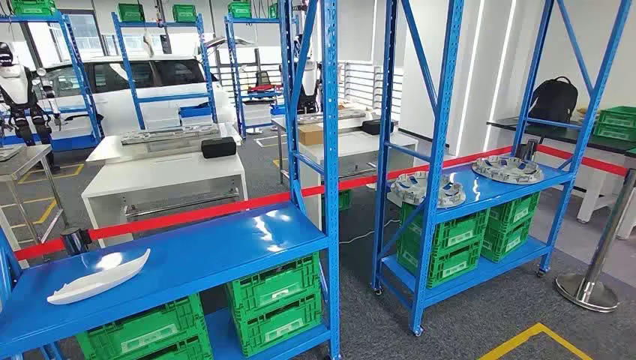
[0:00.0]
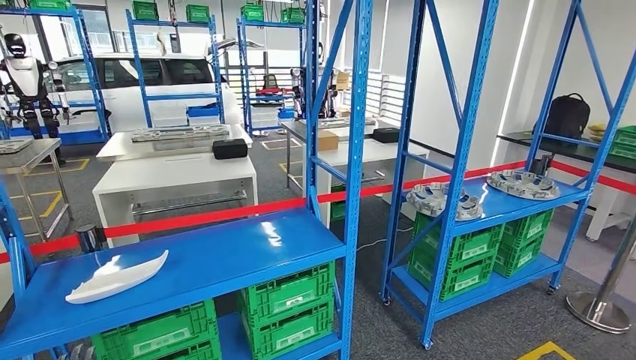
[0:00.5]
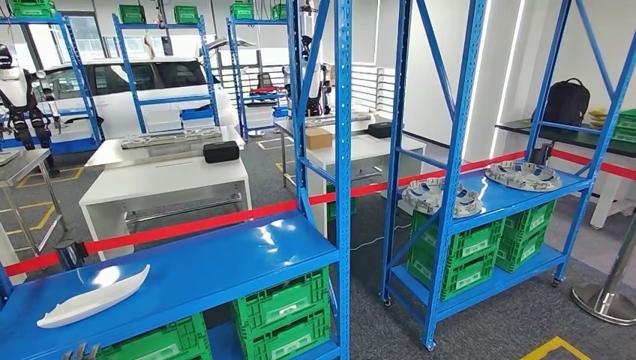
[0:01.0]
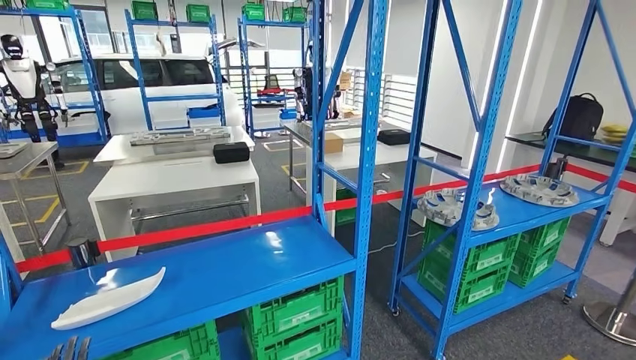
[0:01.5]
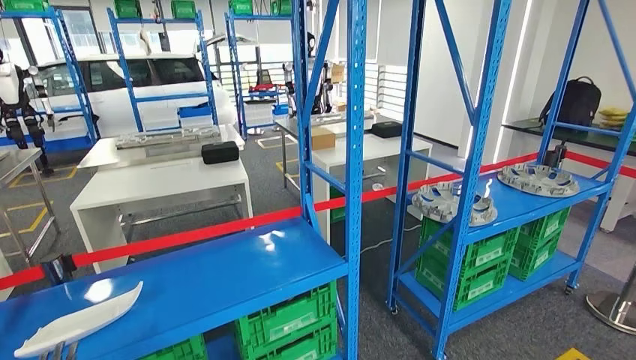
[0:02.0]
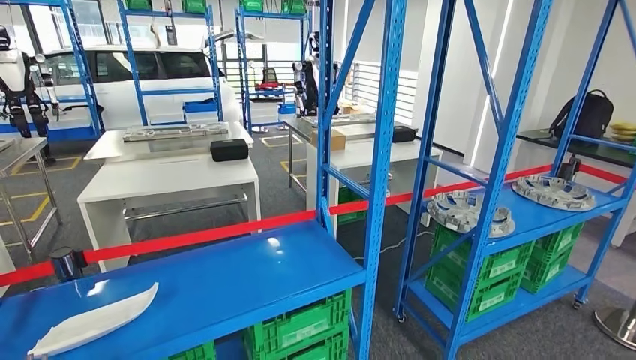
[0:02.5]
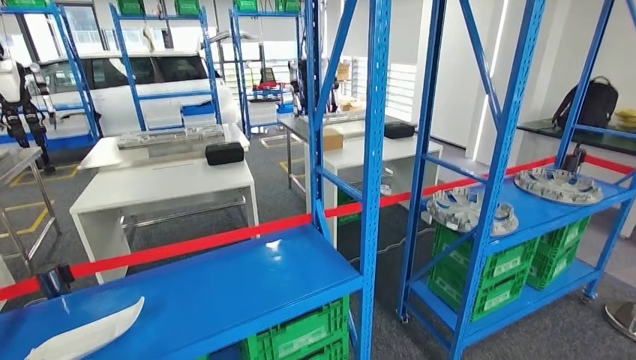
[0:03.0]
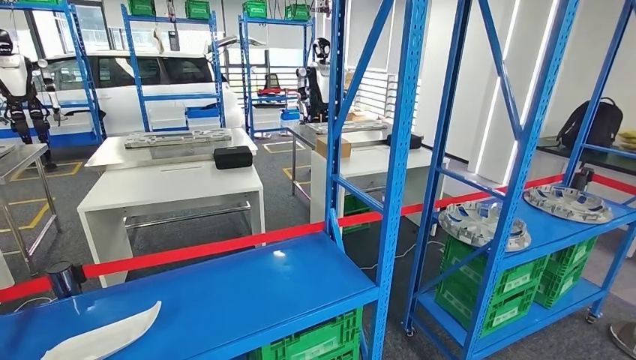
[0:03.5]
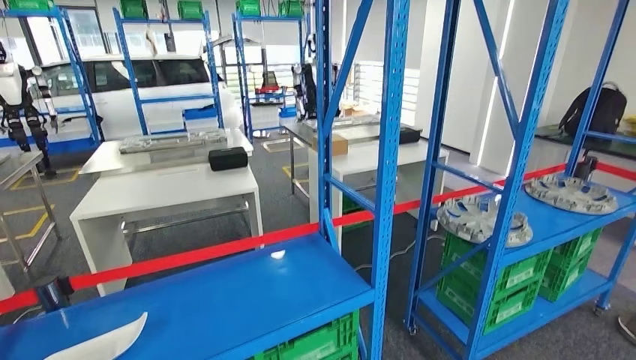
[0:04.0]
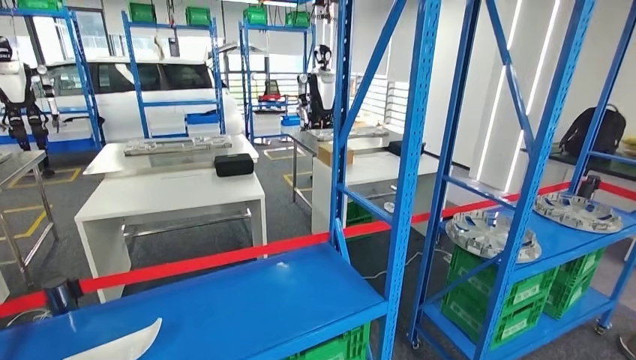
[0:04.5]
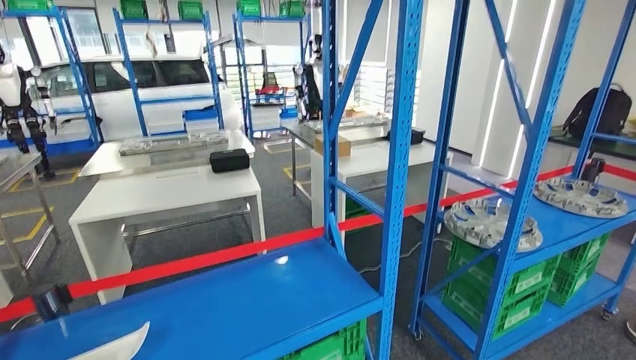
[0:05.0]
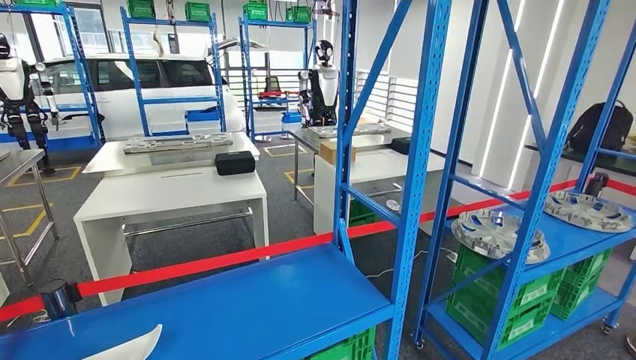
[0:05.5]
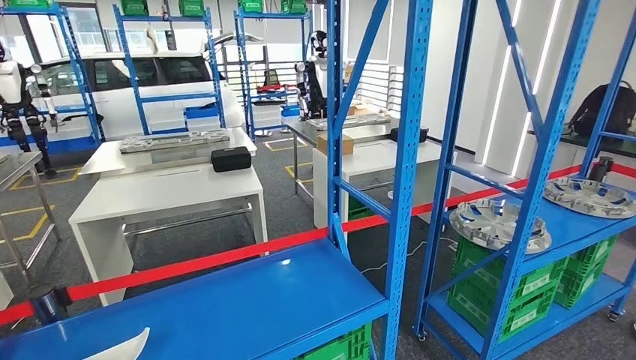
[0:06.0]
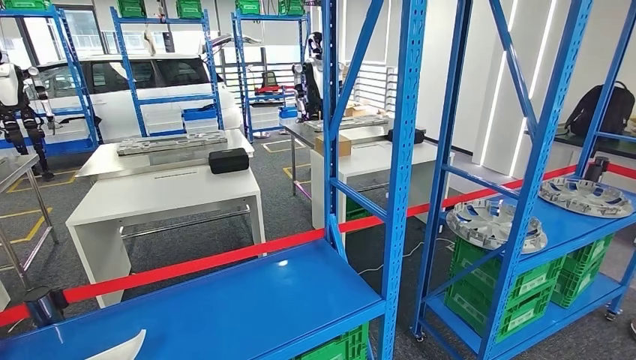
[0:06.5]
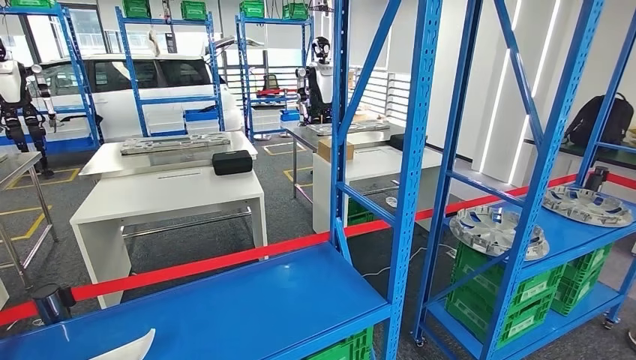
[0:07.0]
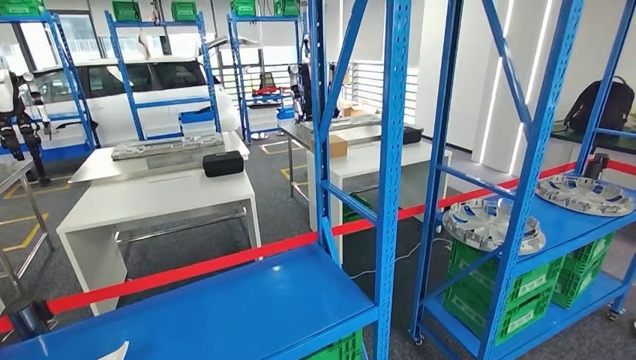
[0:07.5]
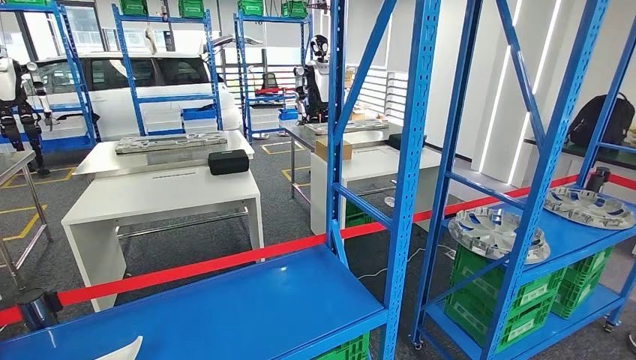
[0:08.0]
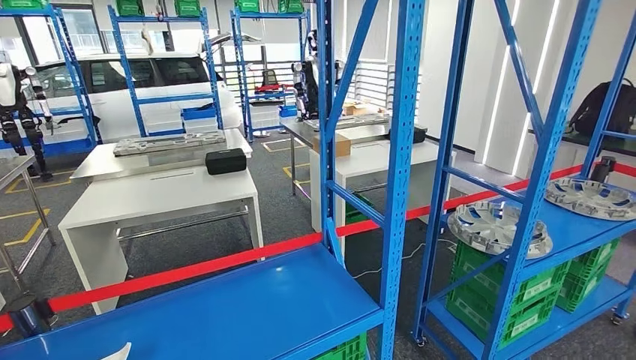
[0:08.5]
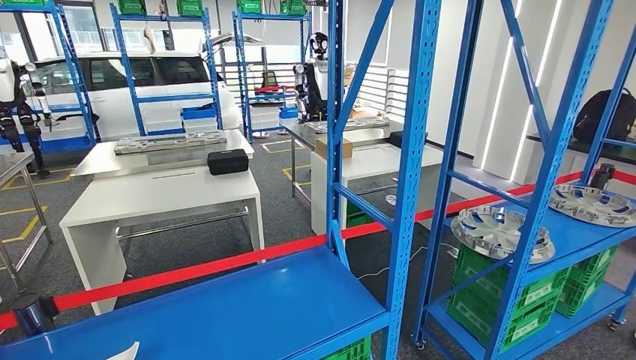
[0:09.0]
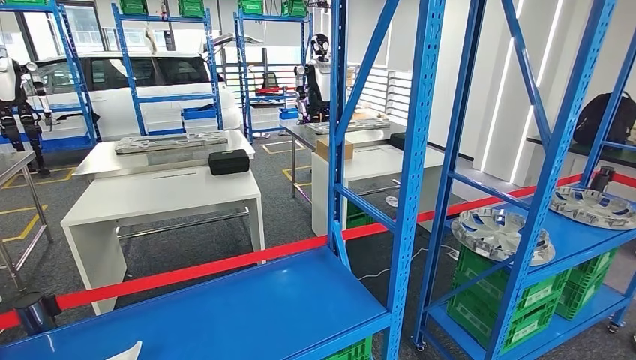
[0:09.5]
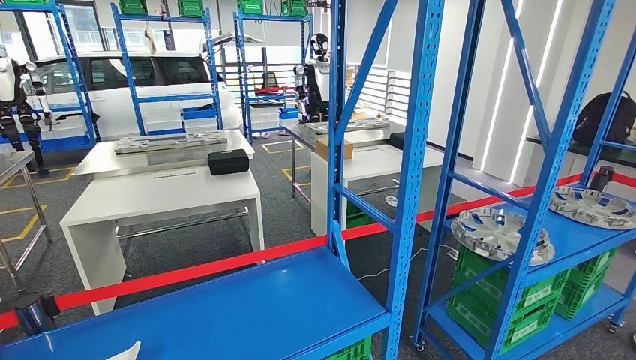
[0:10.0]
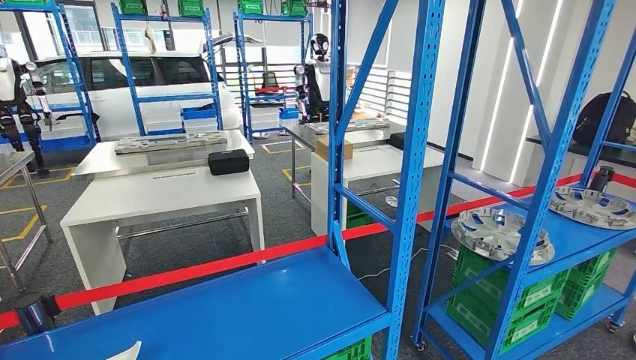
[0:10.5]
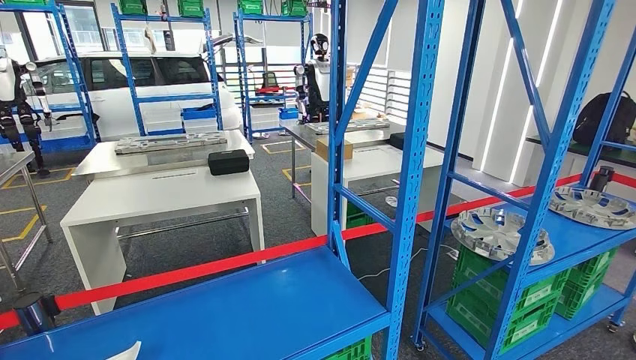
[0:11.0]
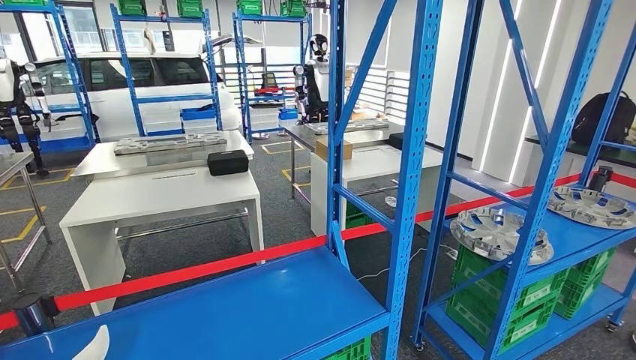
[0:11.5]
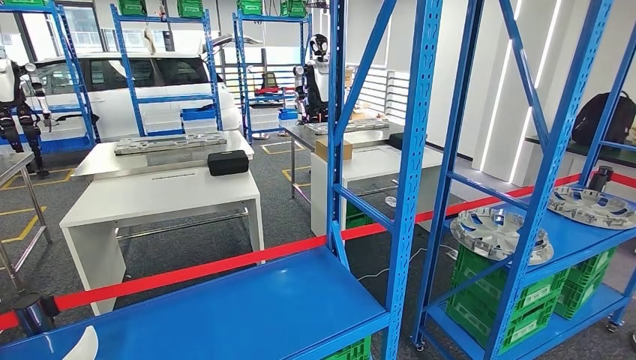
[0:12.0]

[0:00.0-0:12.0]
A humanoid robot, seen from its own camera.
0:08.0 to 0:12.0: The hands stay close to where they were, moving slightly.

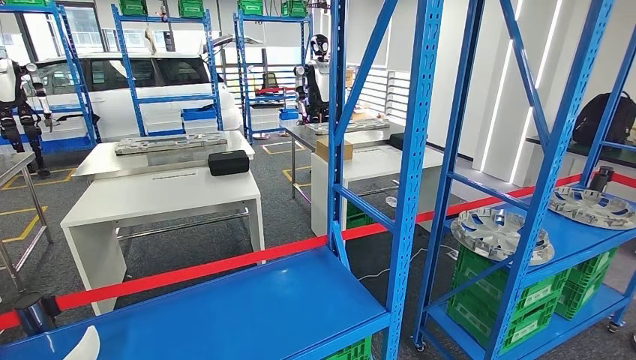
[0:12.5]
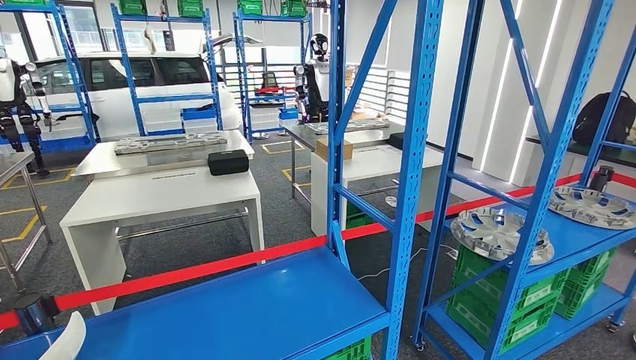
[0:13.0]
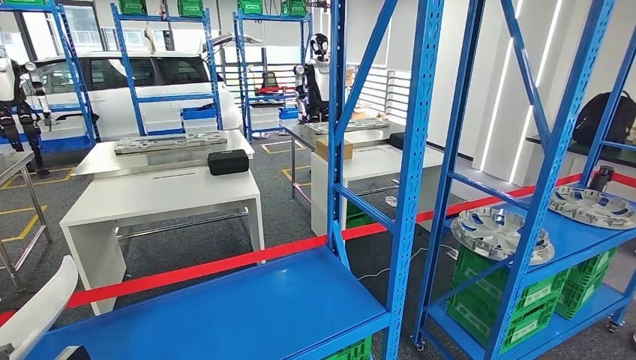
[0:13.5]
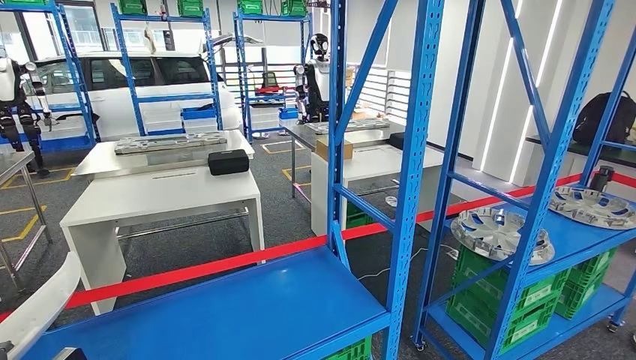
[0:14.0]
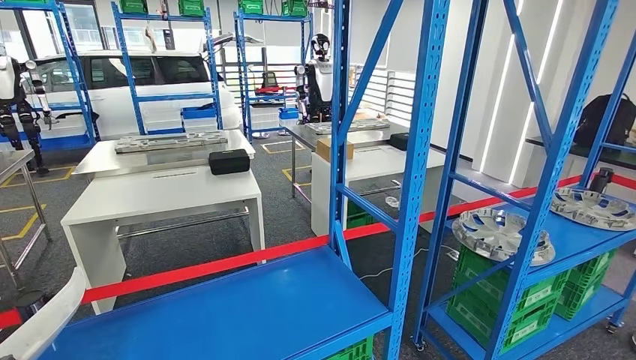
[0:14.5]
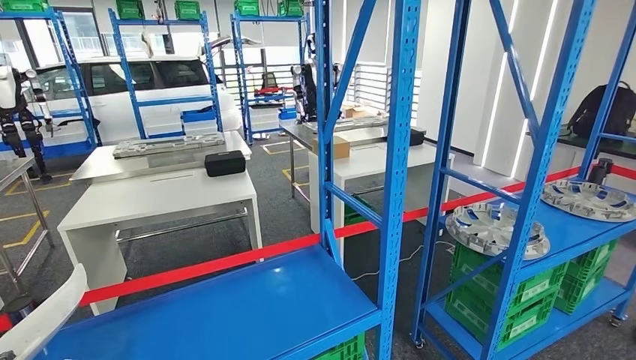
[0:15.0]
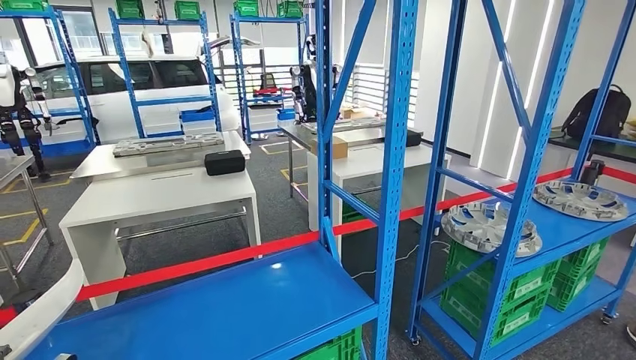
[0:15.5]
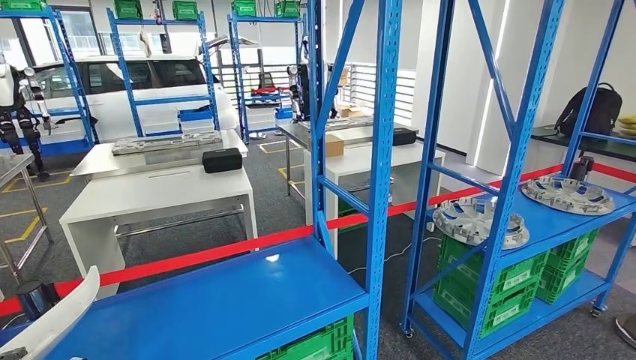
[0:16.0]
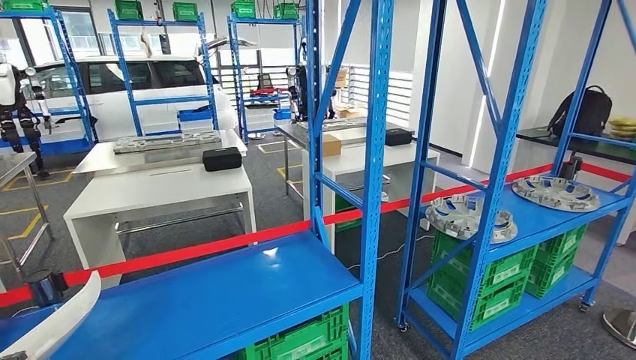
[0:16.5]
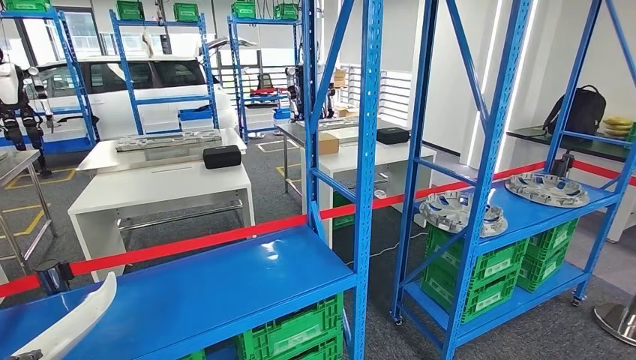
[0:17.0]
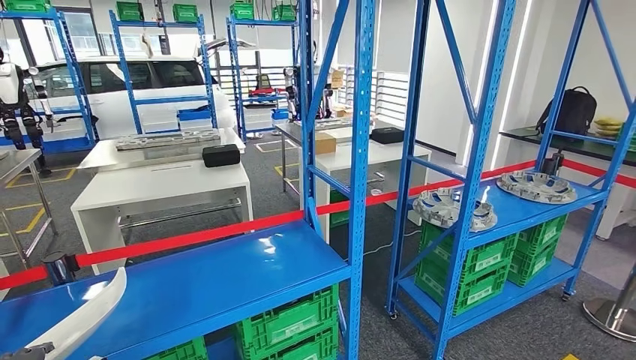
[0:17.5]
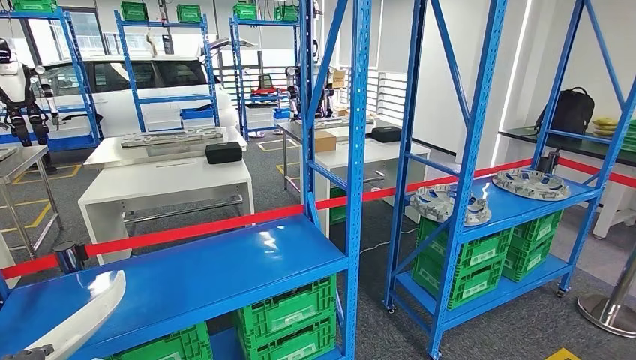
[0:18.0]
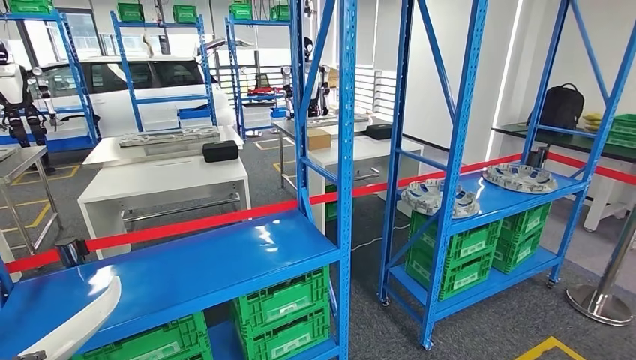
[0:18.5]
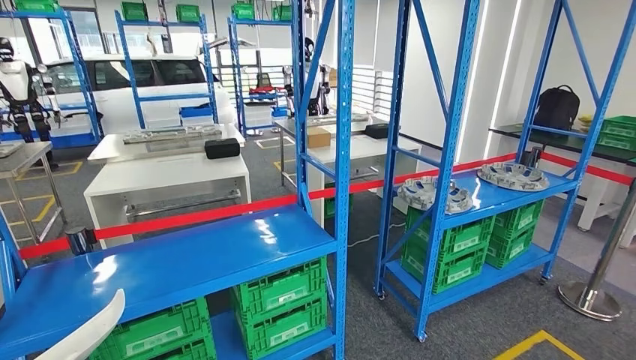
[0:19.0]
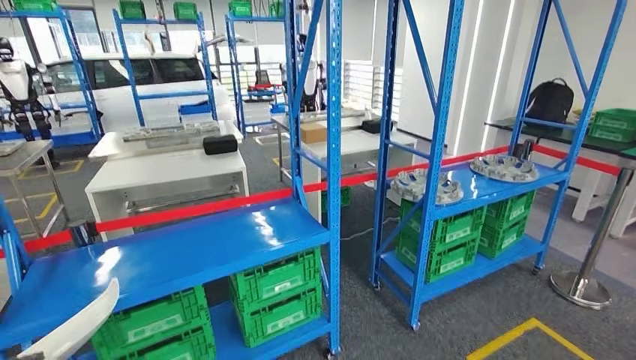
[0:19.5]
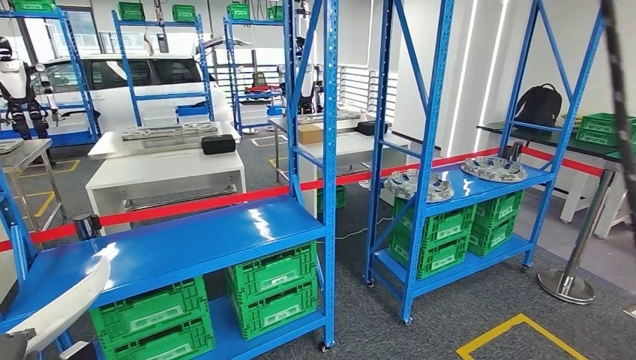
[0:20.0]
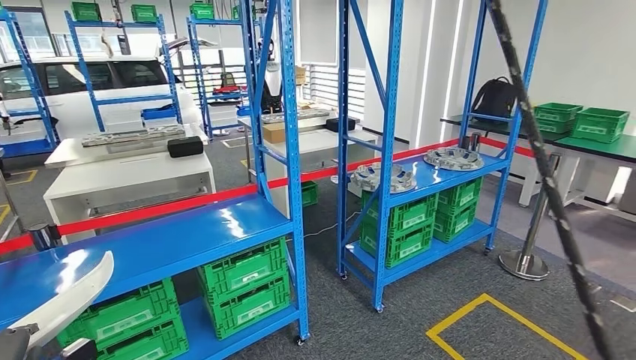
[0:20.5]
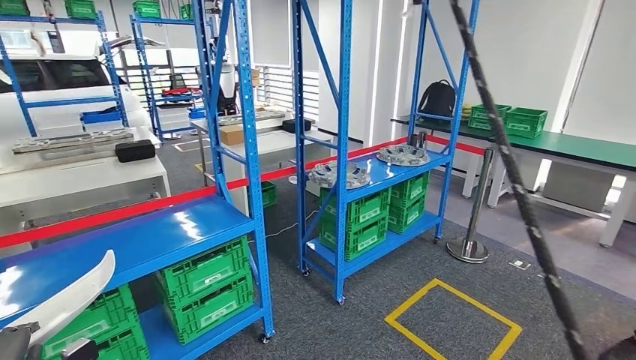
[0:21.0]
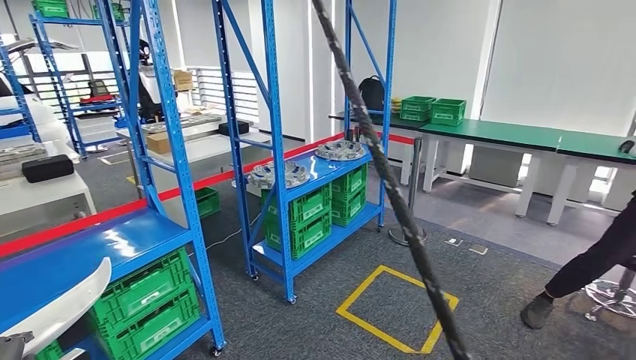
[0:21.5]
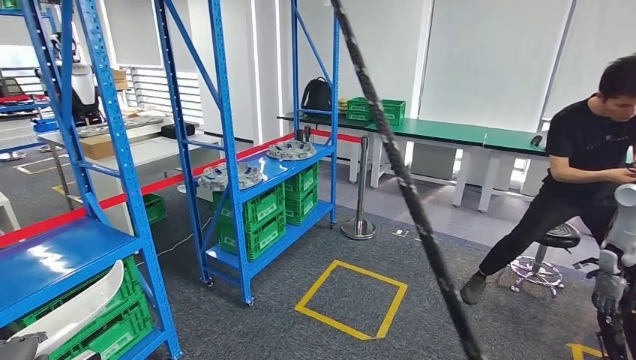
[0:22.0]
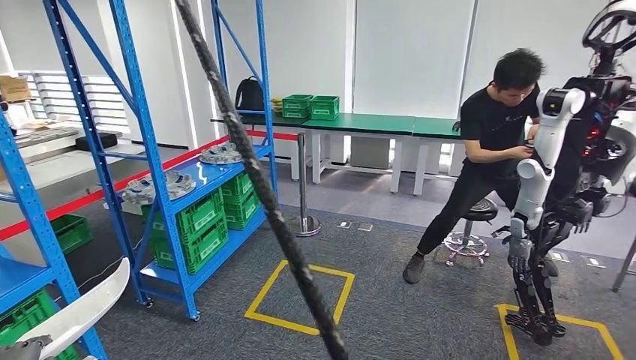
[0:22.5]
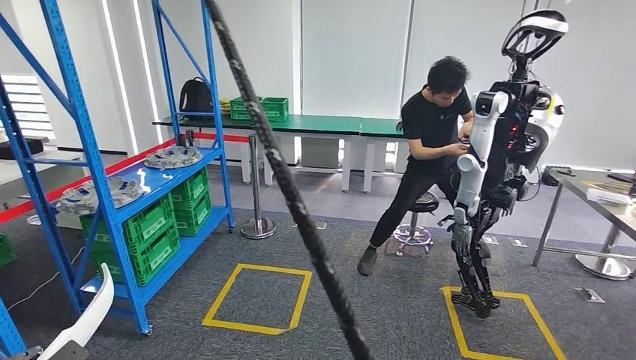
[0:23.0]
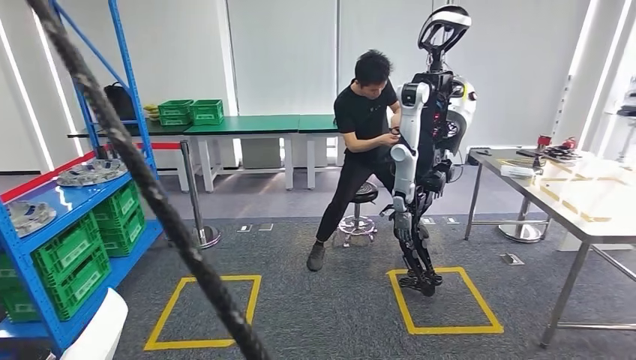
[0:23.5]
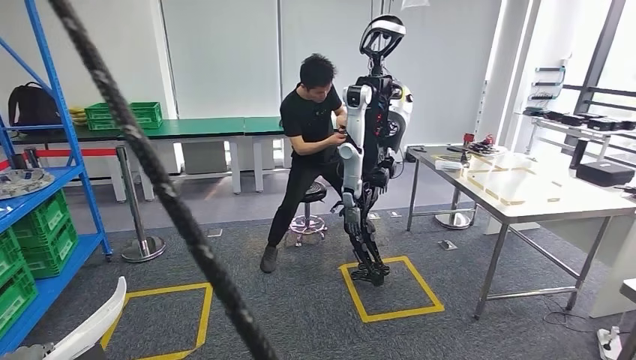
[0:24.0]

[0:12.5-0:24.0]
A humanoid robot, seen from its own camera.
Step, 0:12.5 to 0:15.0: Pick up the small component from the shelf.
0:12.5 to 0:14.5: The left hand is displaced upward by some 5 cm.
